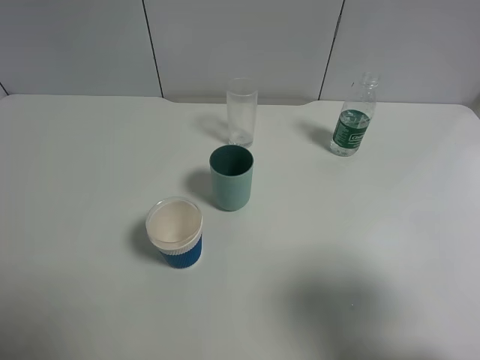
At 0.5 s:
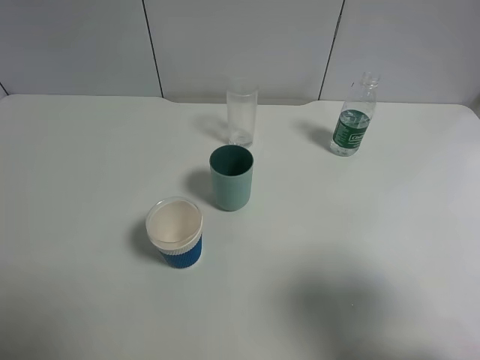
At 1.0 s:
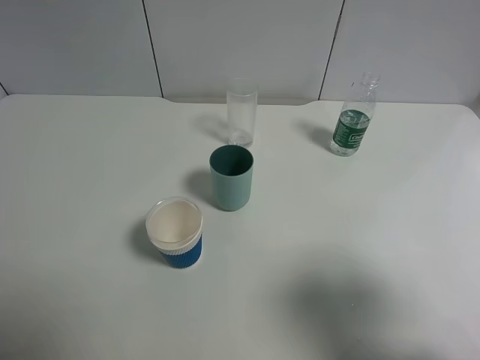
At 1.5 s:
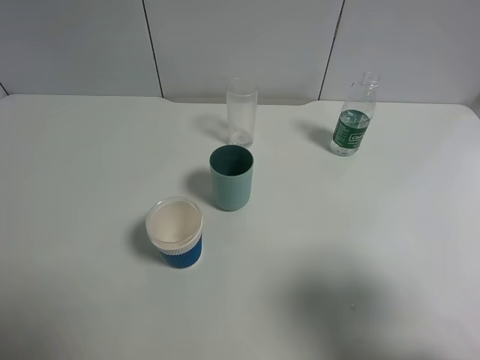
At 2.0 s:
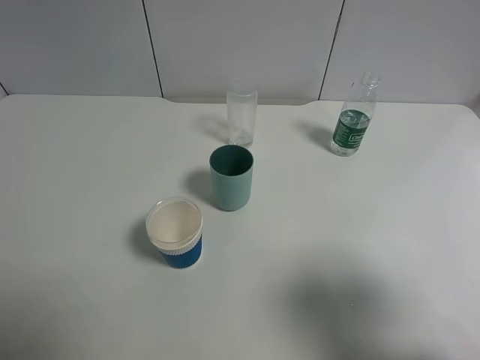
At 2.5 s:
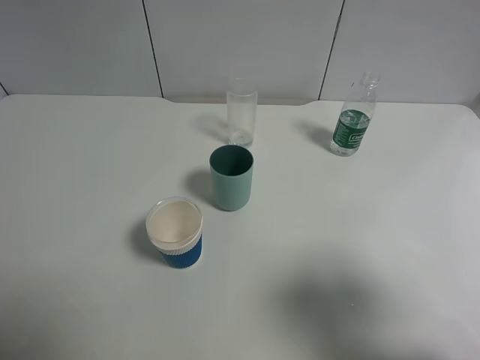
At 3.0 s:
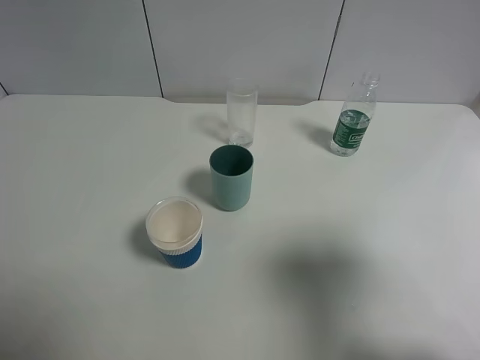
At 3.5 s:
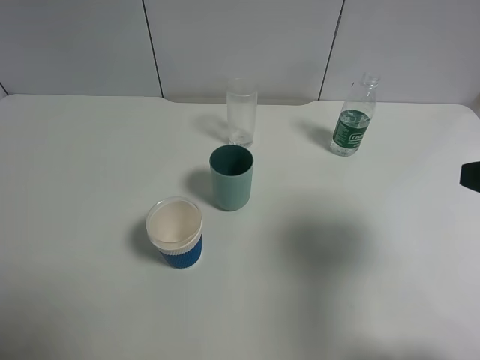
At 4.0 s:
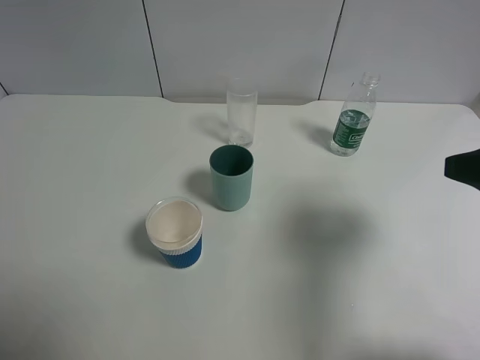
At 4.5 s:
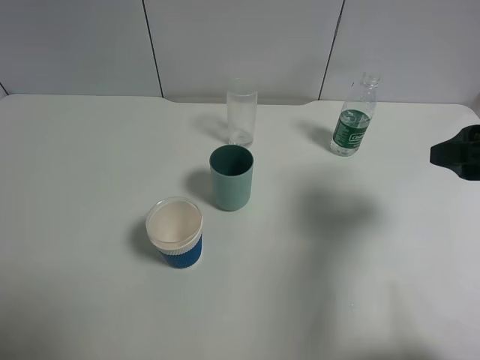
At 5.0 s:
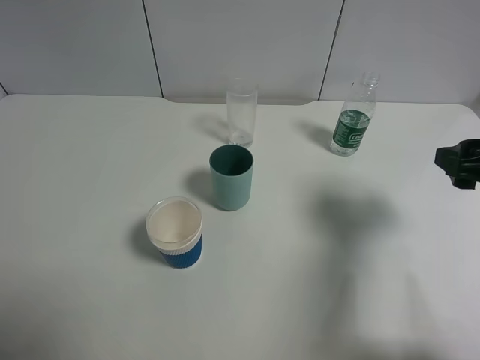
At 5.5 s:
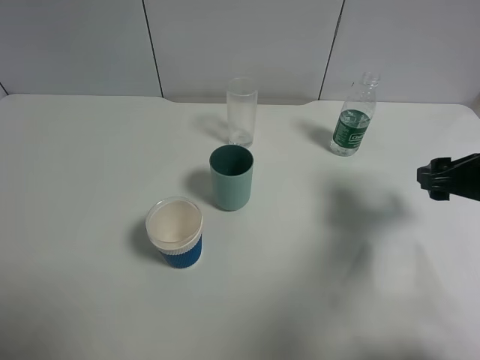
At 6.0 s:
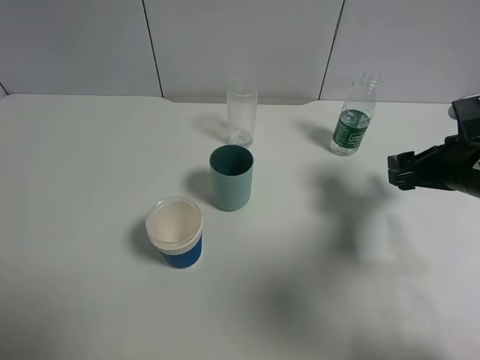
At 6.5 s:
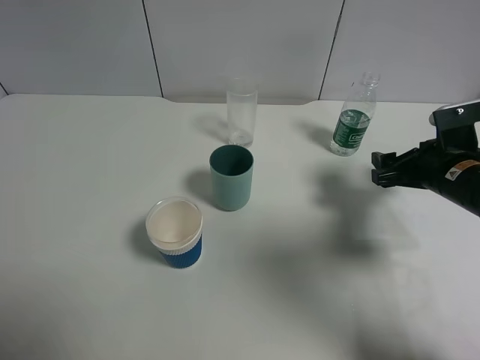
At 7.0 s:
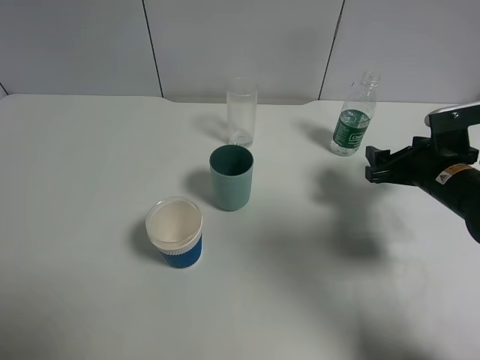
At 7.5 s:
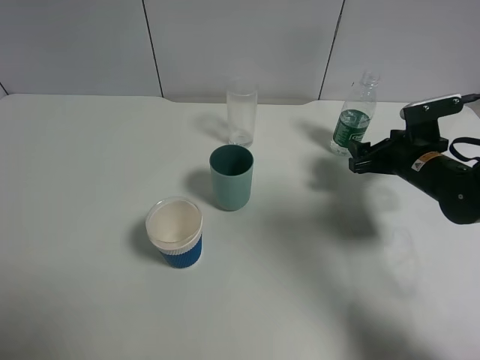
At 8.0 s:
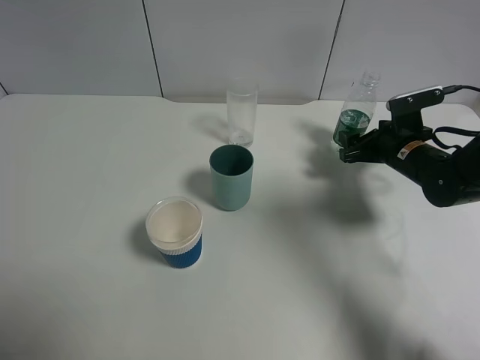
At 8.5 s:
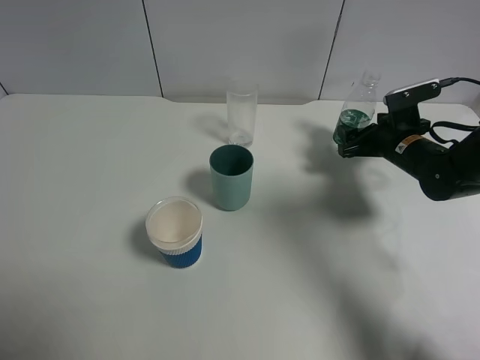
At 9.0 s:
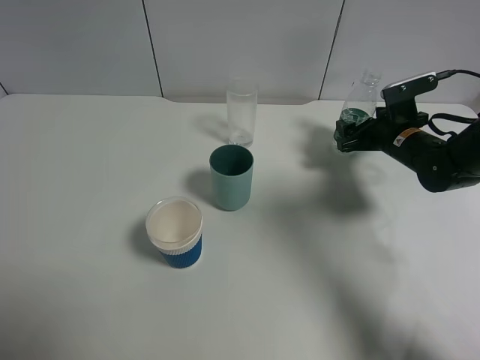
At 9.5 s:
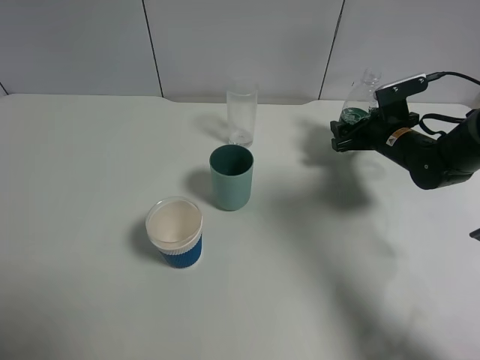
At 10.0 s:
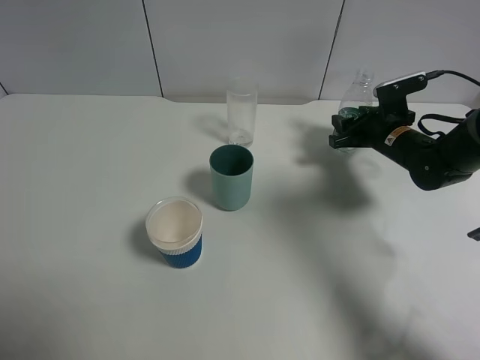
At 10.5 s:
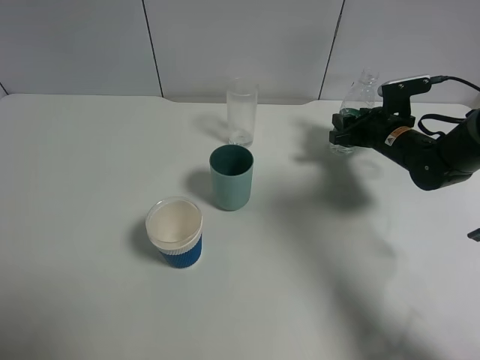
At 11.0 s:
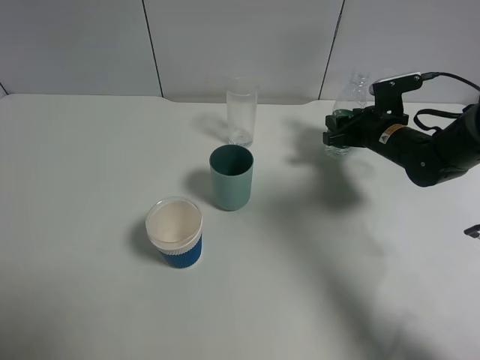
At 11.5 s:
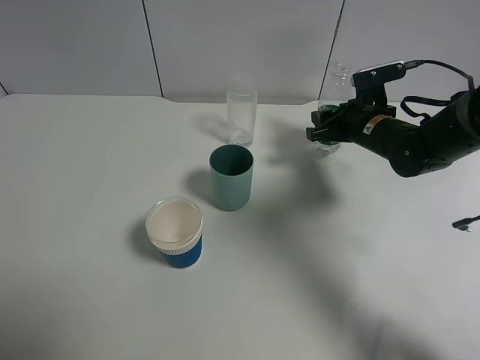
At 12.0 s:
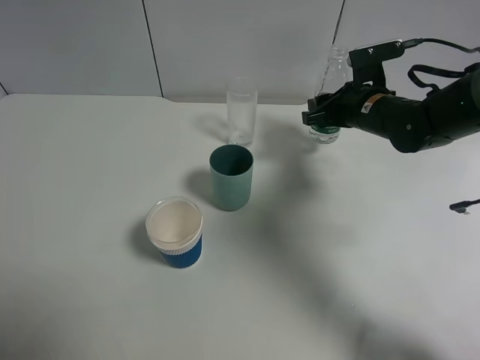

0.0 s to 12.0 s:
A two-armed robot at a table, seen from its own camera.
Task of the whole recording: use a gripper to hold the bottle of the drink and pour it into a random cup.
Step, 0.0 to 10.5 s: Grasp the mineral water bottle with the right gripper.
0.0 to 2.0 s: The two grippers keep their place.
2.0 to 4.0 s: The right gripper shifts about 15 cm forward.
4.0 to 6.0 s: The right gripper heads downward and forward, covering approximately 15 cm.
6.0 to 8.0 s: The right gripper travels forward and downward by some 10 cm.
8.0 to 10.0 s: The right gripper closes its fingers.
10.0 to 12.0 s: The right gripper travels to the left and upward by about 10 cm.

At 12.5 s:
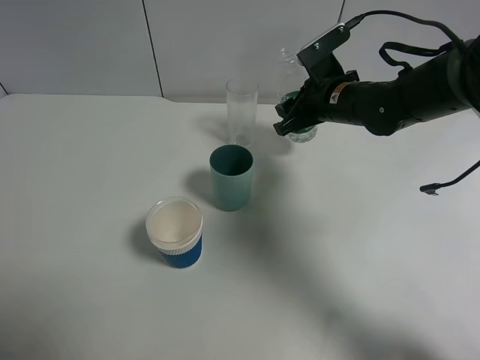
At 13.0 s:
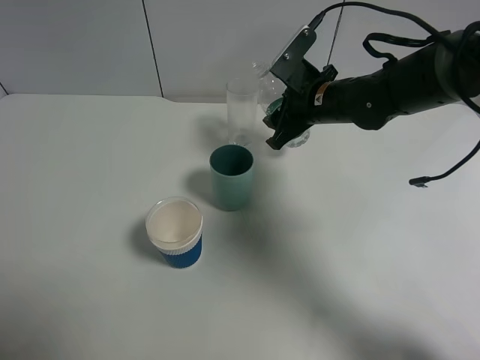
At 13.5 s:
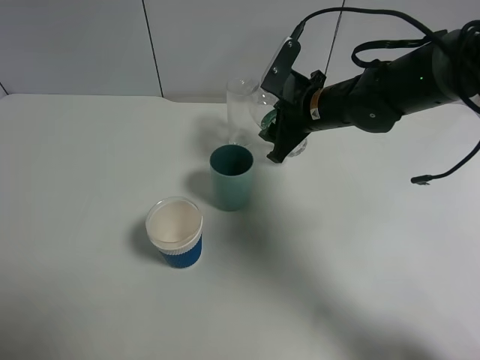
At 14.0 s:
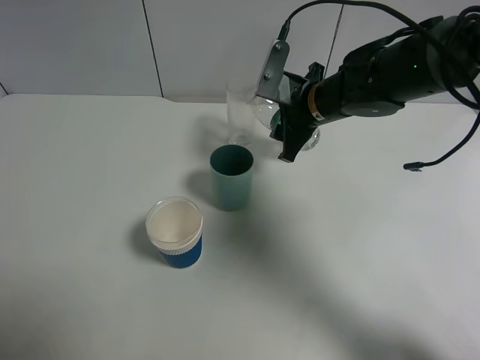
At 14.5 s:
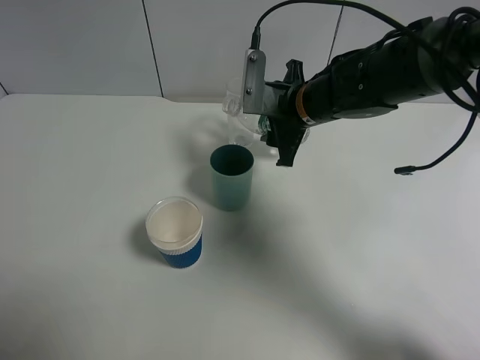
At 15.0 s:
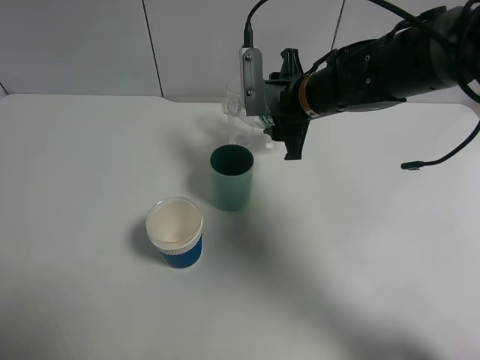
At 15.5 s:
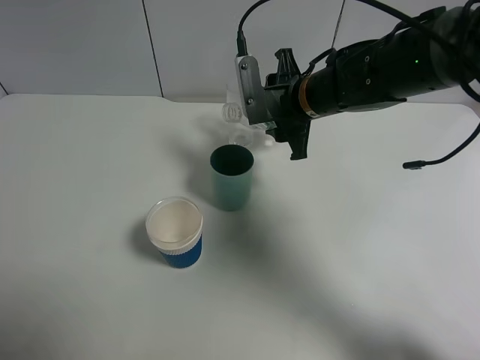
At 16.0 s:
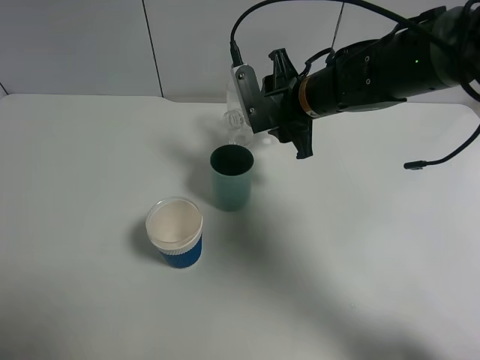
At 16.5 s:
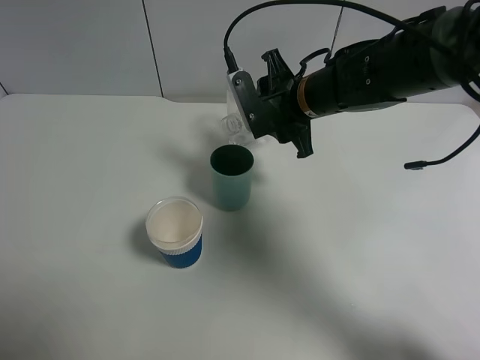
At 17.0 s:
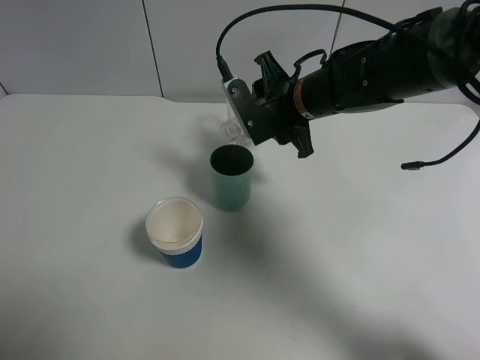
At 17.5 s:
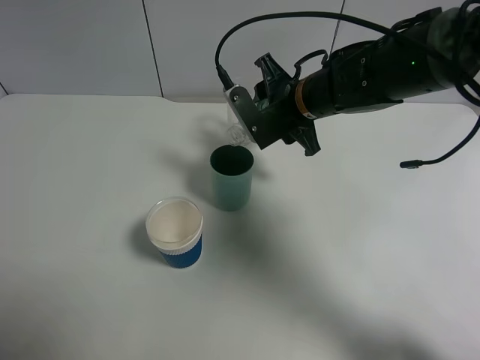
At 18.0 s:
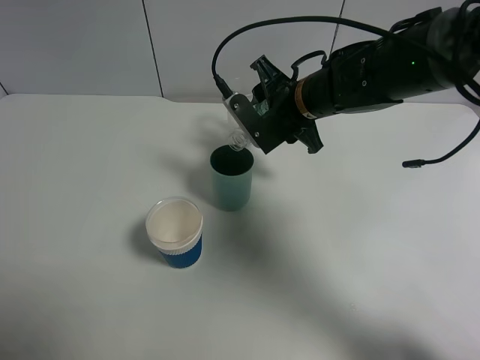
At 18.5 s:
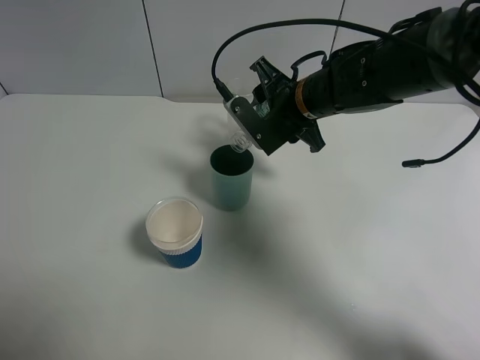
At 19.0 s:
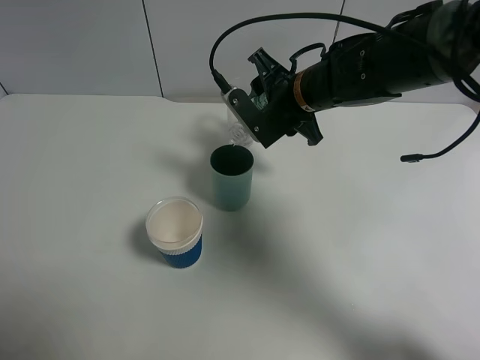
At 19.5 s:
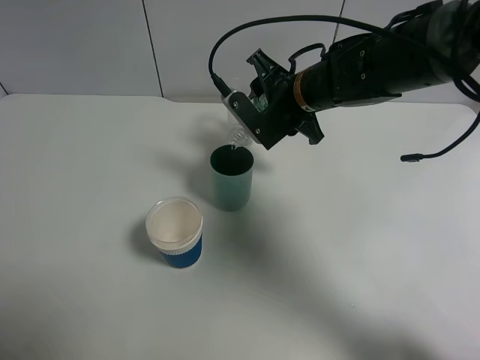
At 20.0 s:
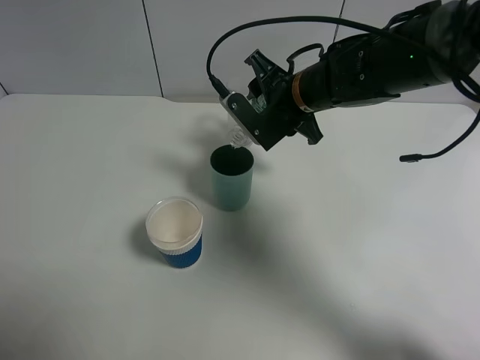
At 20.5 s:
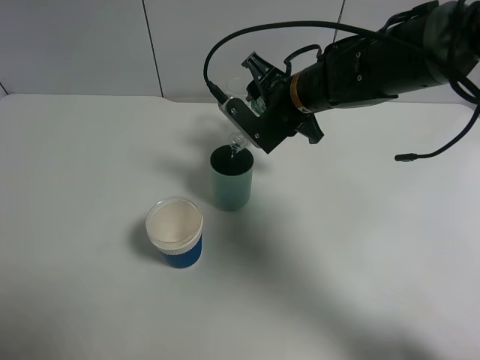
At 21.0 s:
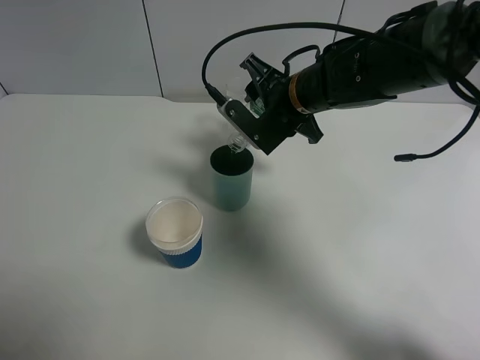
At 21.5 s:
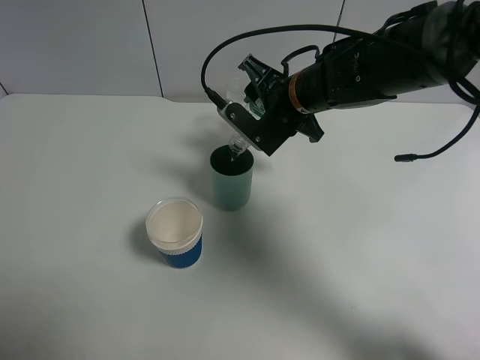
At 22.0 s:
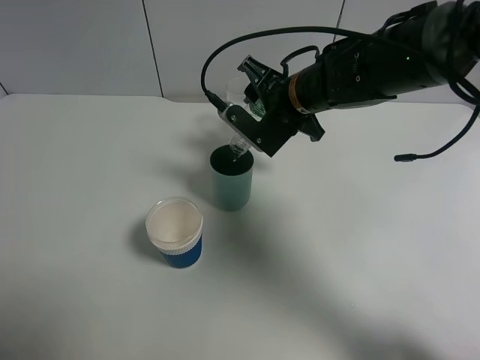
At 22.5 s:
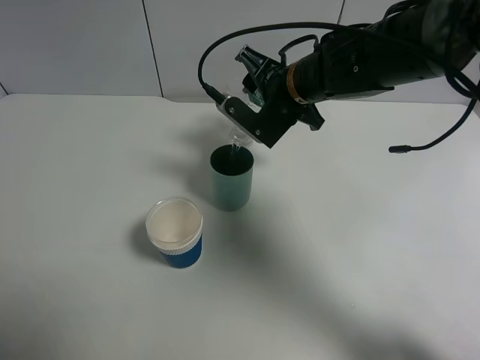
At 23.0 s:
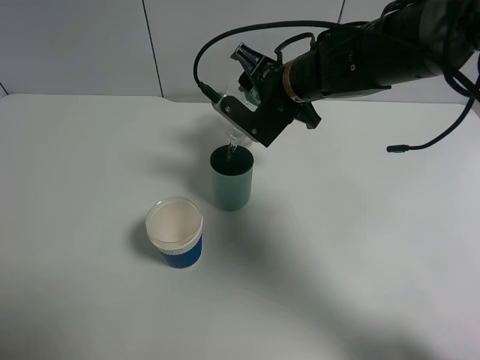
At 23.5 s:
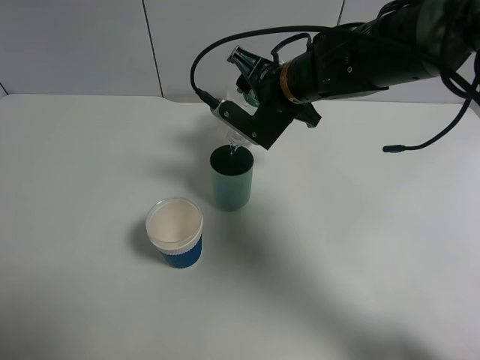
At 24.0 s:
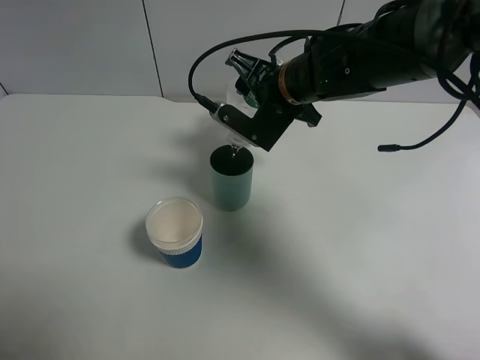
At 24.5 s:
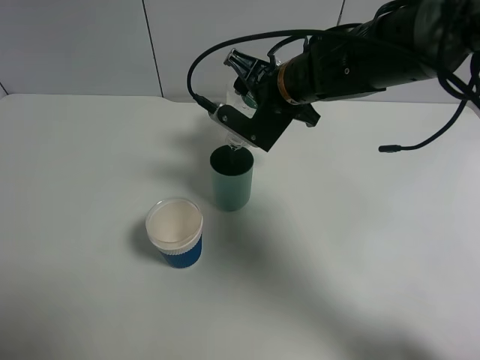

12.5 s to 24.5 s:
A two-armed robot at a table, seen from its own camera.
Task of the whole recording: use a gripper to hold the bottle of the drink and pour it into a random cup.
12.5 to 14.5 s: The right gripper travels to the left by approximately 5 cm.
16.5 to 18.5 s: The grippers make only small movements.
18.5 to 24.5 s: The grippers move only a little.

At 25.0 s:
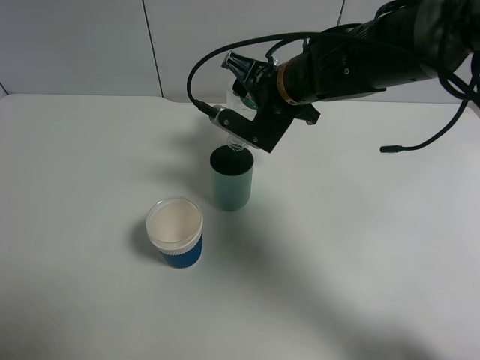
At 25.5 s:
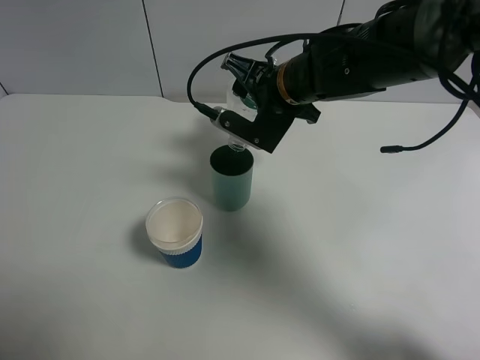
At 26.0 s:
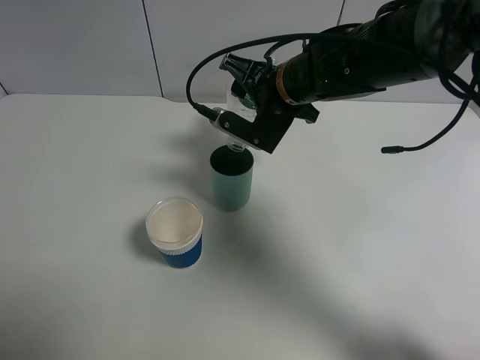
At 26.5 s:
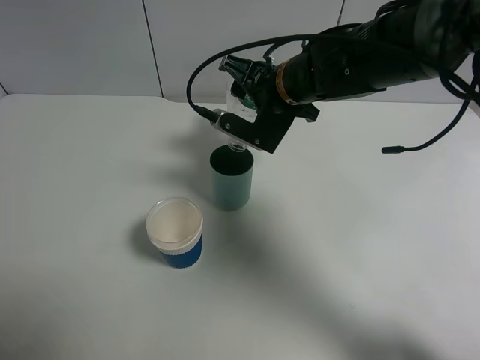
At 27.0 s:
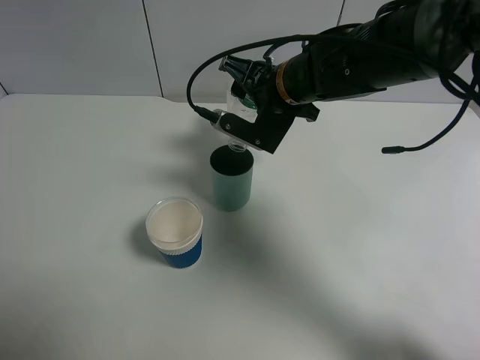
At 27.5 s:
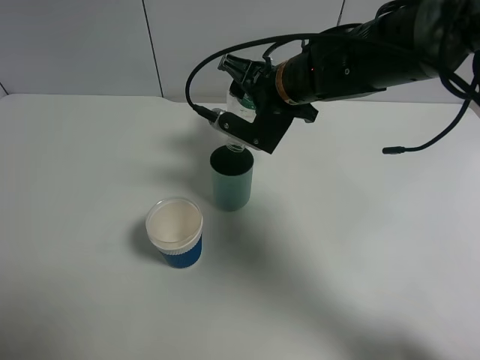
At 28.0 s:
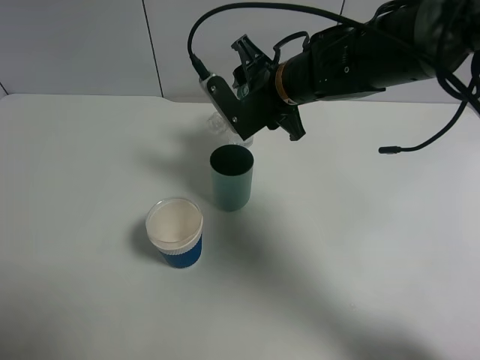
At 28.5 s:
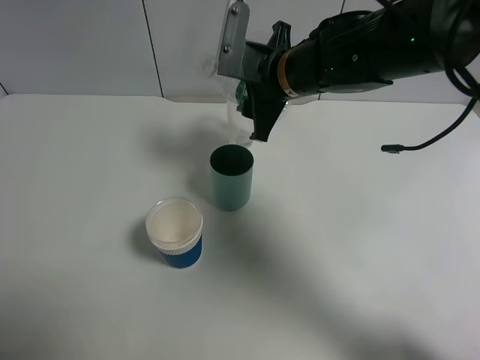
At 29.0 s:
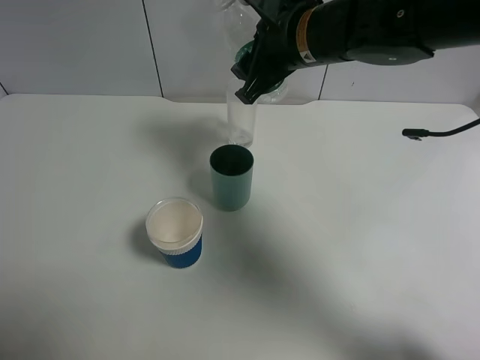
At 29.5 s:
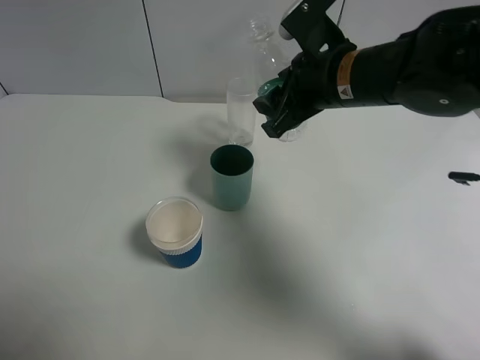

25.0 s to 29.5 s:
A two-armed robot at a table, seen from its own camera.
Task of the whole recording: use a gripper to hold the bottle of the drink and pour it into a random cup.
Step, 25.0 to 28.0 s: Pour the mineral water into the cyan cup with the right gripper.
25.0 to 27.0 s: Neither gripper changes place.
27.0 to 29.5 s: The right gripper shifts some 5 cm backward and to the right.
